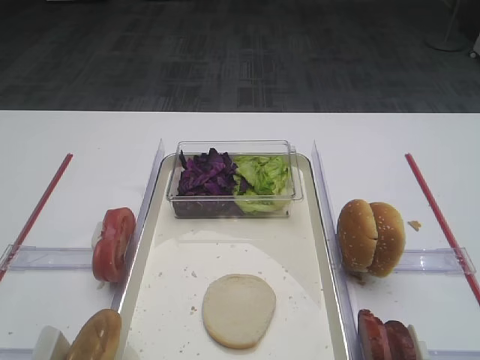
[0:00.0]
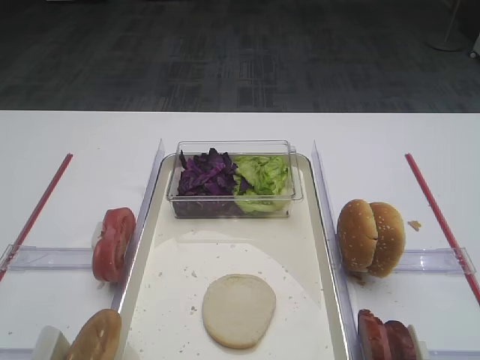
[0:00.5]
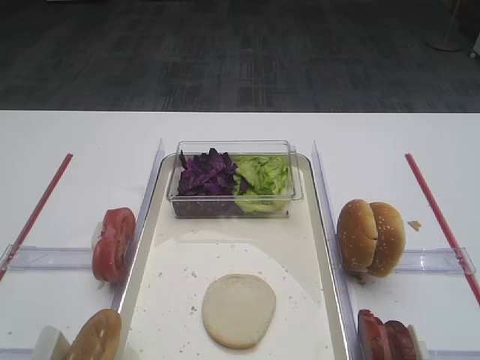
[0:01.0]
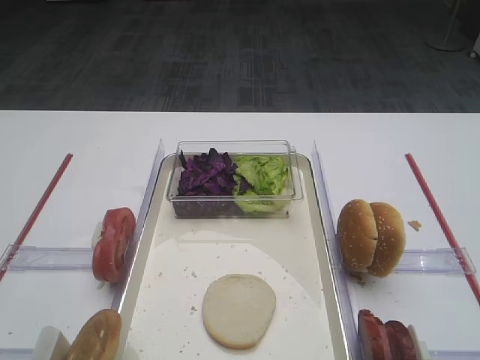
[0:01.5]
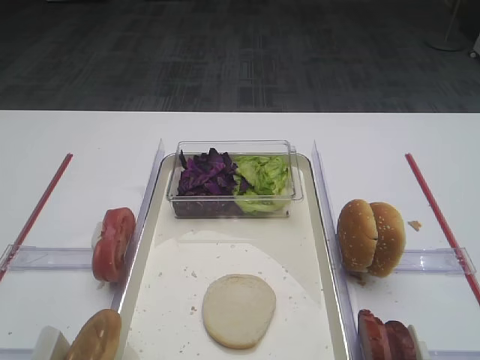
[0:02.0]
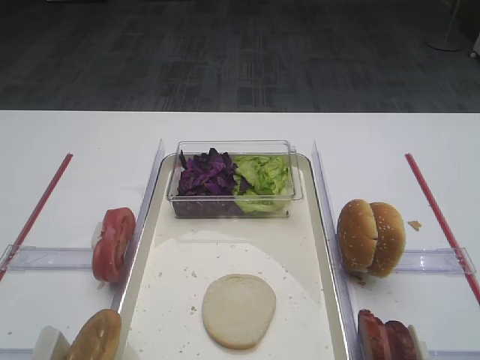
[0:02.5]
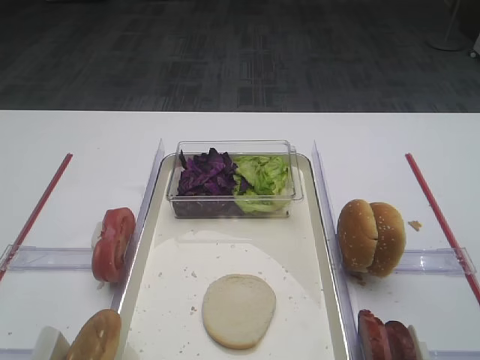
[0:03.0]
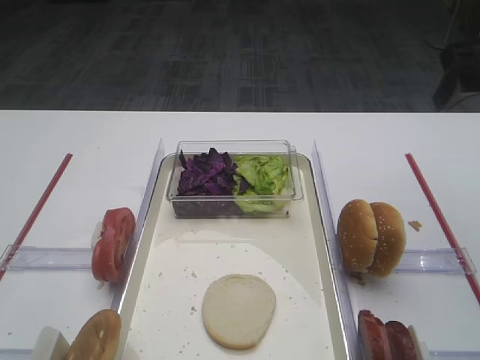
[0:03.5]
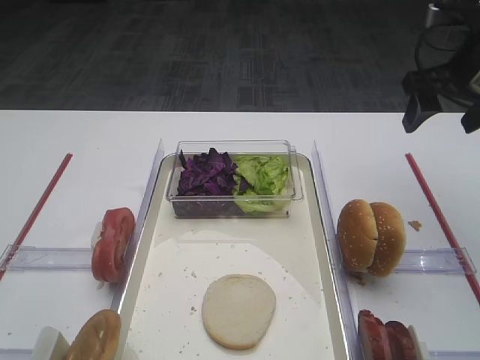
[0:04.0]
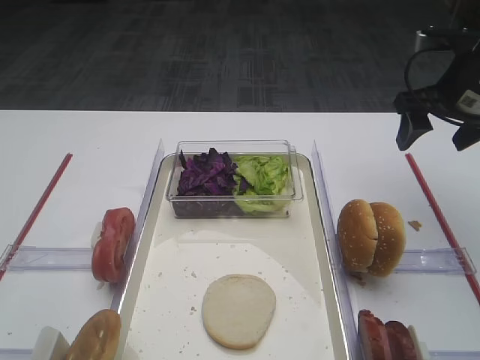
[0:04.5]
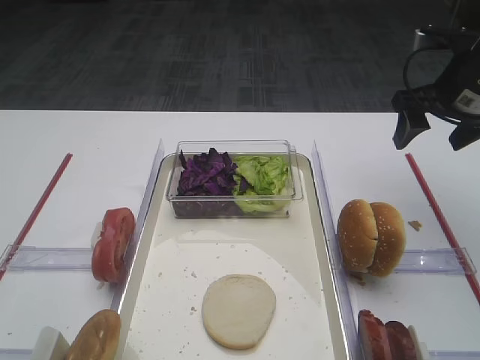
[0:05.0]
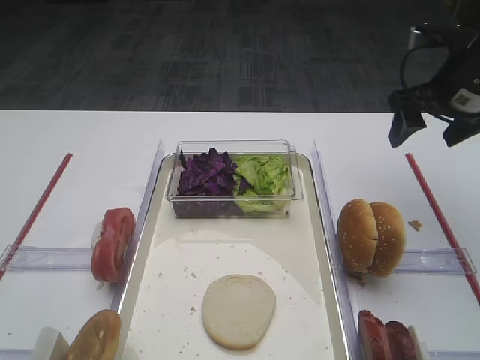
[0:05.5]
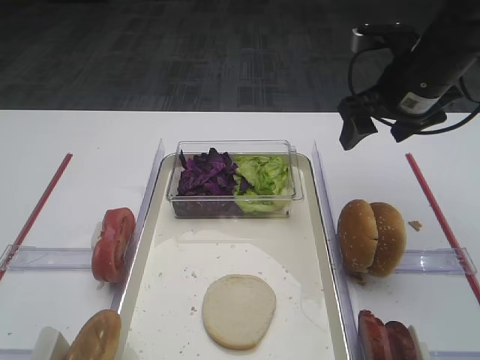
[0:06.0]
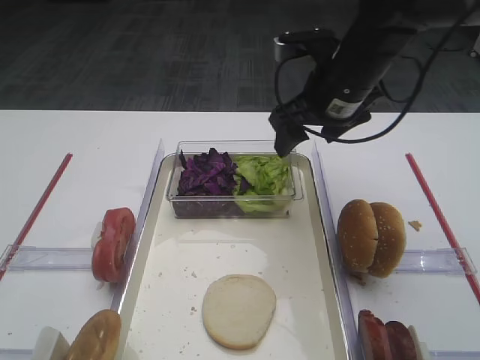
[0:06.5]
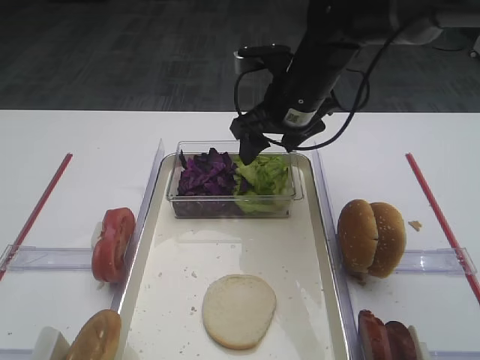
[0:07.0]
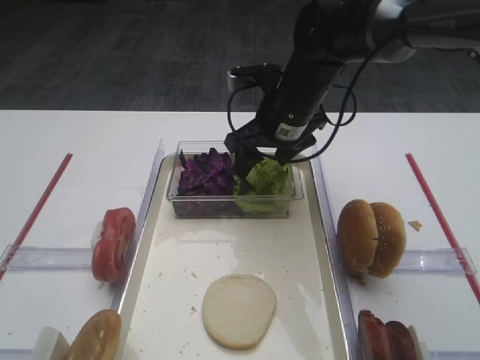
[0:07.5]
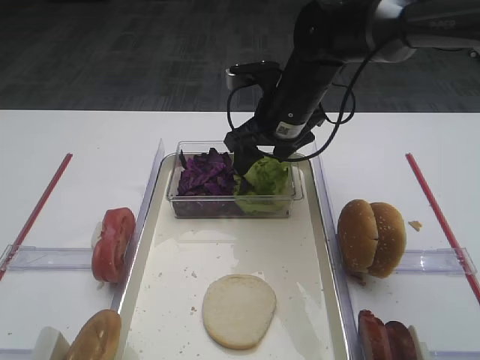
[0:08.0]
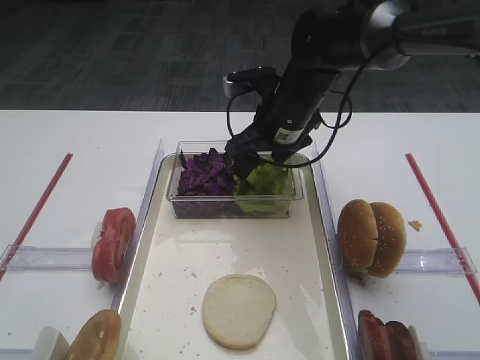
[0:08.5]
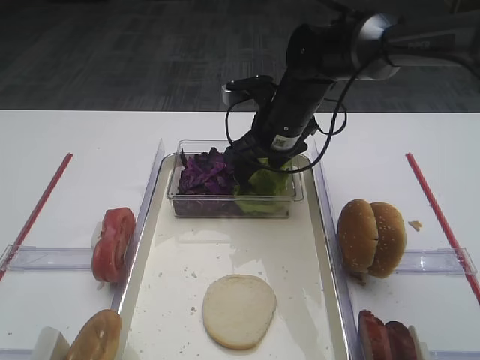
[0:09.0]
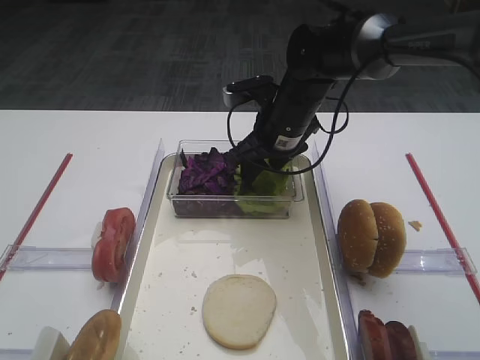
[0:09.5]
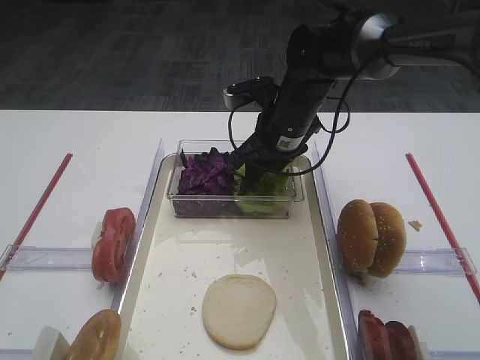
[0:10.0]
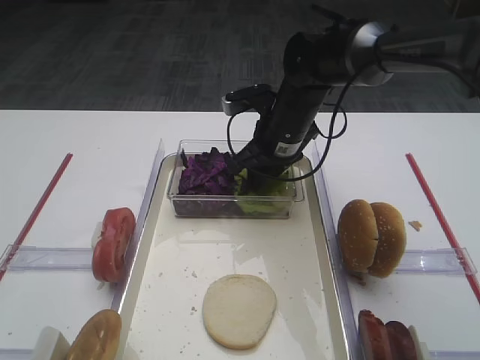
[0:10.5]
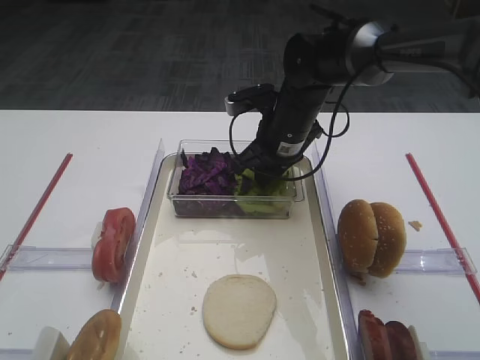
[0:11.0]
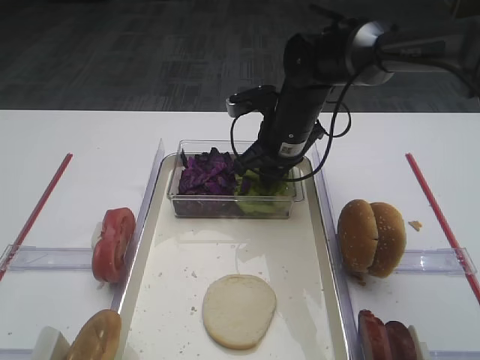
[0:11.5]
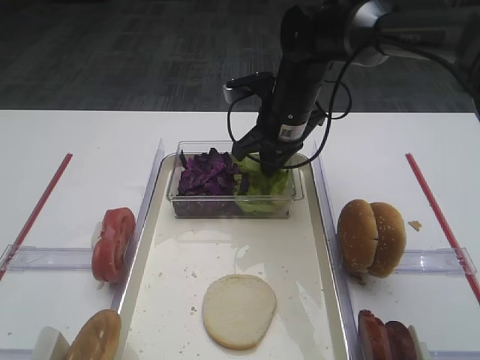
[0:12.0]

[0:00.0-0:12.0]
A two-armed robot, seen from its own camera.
0:02.0 to 0:04.0: The right gripper shifts approximately 35 cm forward.
0:04.0 to 0:06.0: The right gripper shifts approximately 5 cm to the left.
0:06.0 to 0:08.0: The right gripper heads to the left, covering some 15 cm.
0:08.0 to 0:10.0: There are only small adjustments of the grippers.
0:10.0 to 0:12.0: The right gripper closes up.

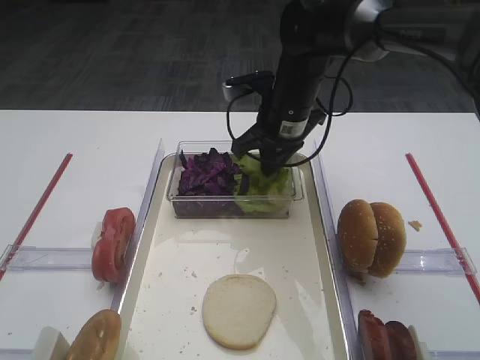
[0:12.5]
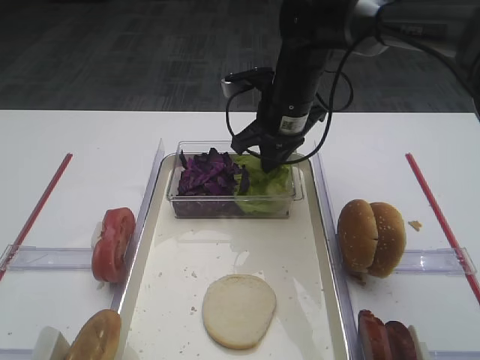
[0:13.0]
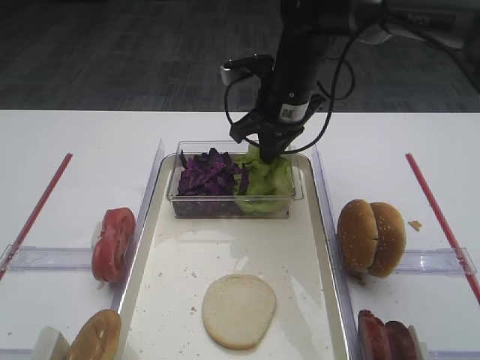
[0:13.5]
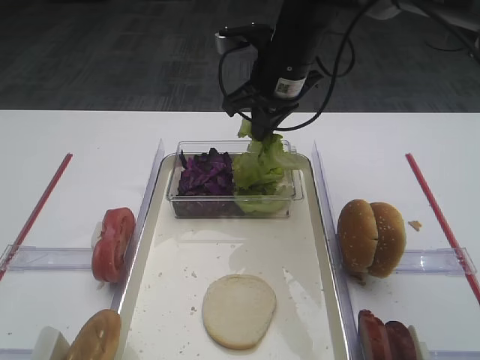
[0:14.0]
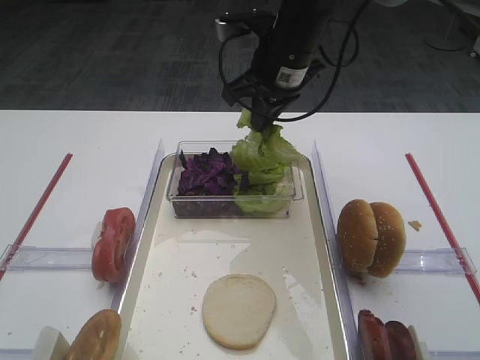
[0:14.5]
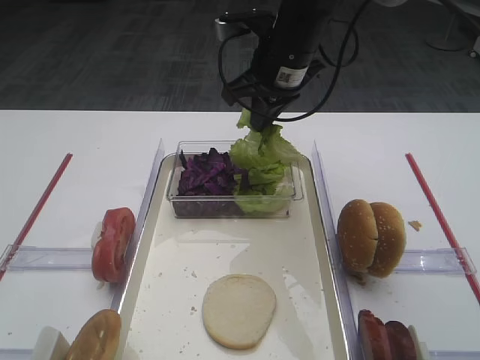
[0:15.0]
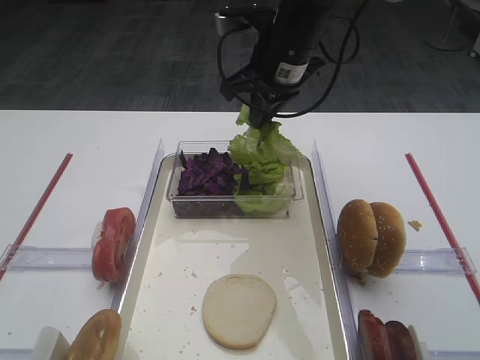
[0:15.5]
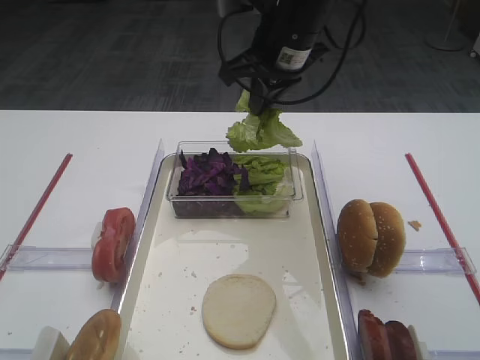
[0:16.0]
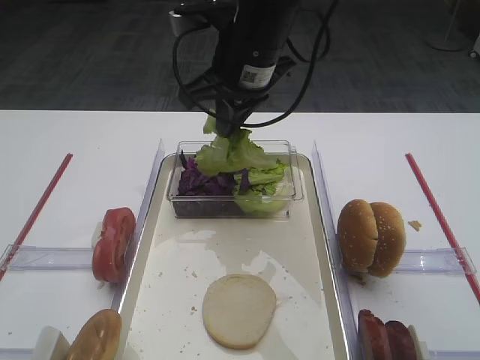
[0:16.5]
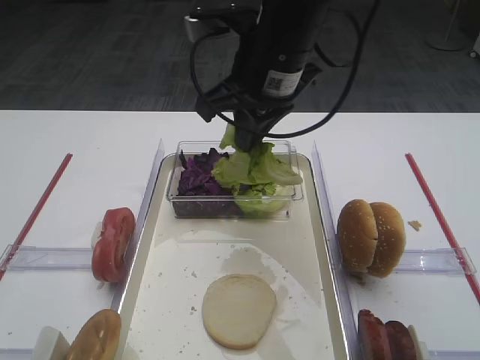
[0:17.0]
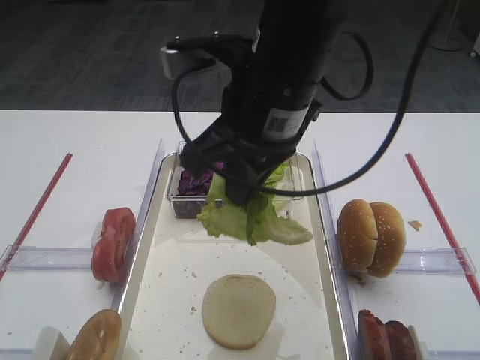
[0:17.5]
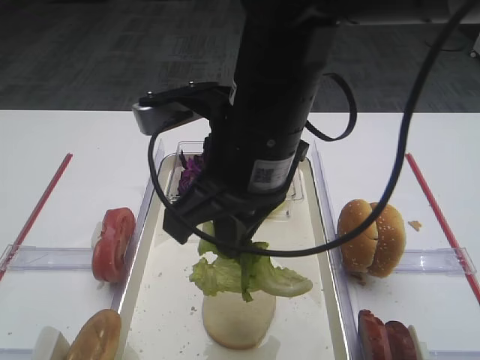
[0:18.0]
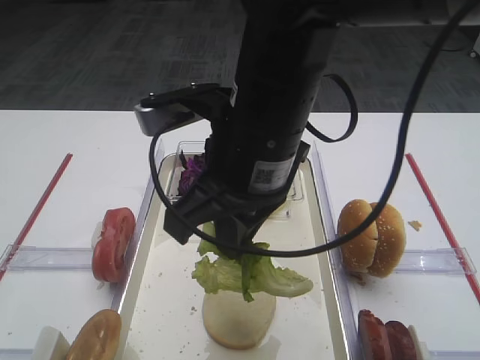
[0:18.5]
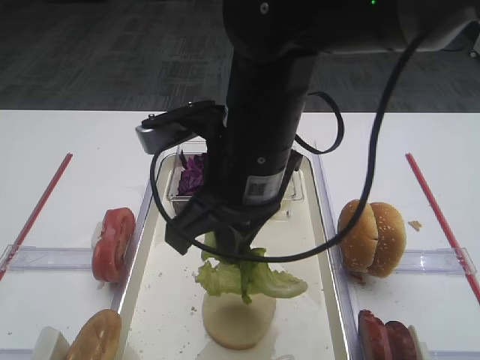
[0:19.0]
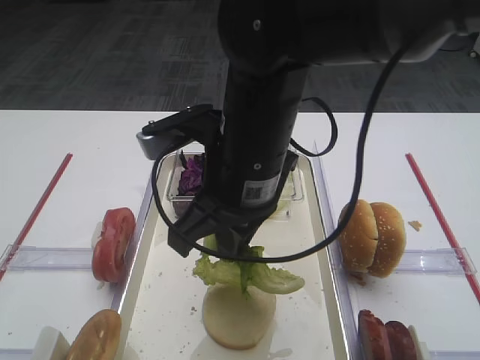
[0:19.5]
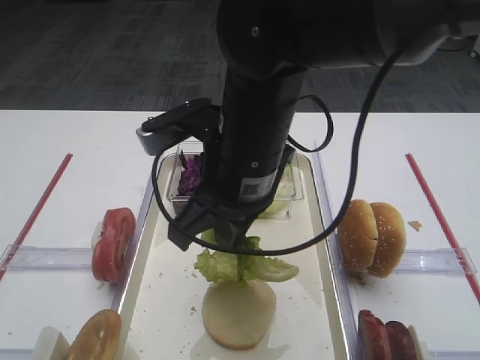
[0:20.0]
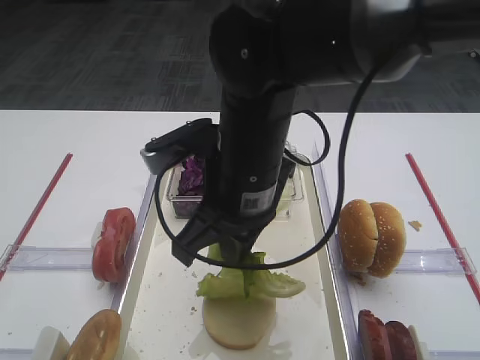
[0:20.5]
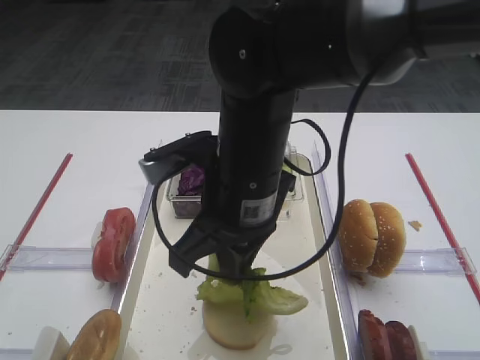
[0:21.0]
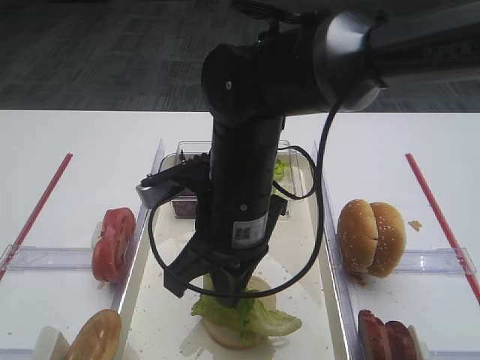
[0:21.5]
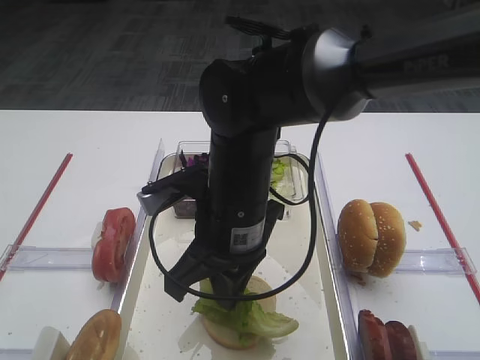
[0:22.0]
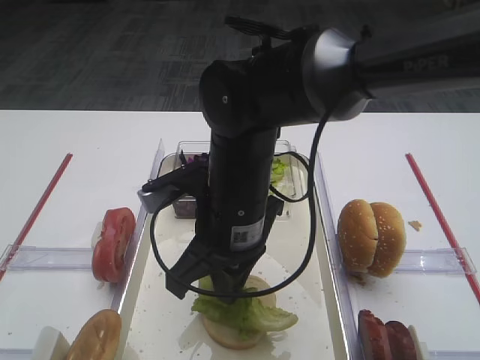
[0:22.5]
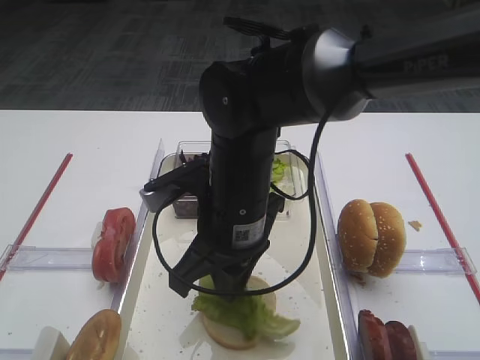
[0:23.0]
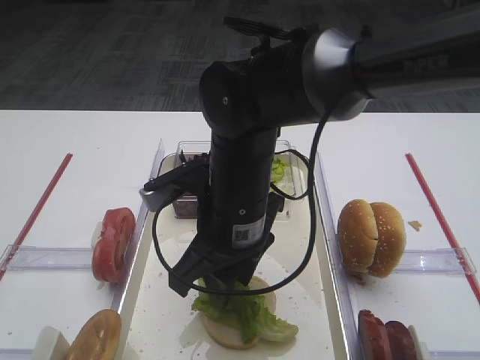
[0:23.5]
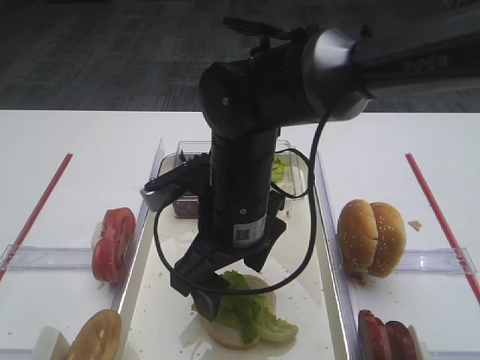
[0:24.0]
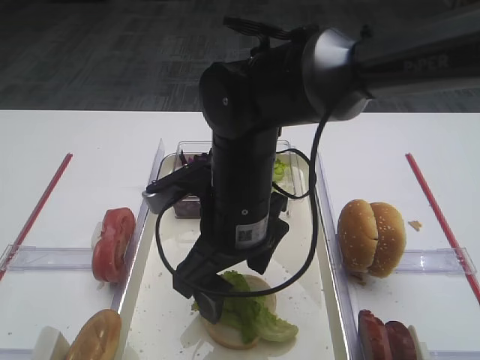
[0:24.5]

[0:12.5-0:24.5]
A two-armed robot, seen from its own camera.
Step, 0:12.5 to 0:15.5: Pick up the lettuce leaf with the right gripper.
0:12.5 to 0:14.5: The right gripper is displaced upward by some 5 cm.
0:14.5 to 0:16.5: The right gripper changes place by about 5 cm.
0:16.5 to 0:18.5: The right gripper shifts roughly 15 cm backward.
0:18.5 to 0:20.5: The right gripper is displaced downward by approximately 5 cm.
0:20.5 to 0:22.5: The grippers stay close to where they were, moving slightly.
0:22.5 to 0:24.5: The right gripper opens up.

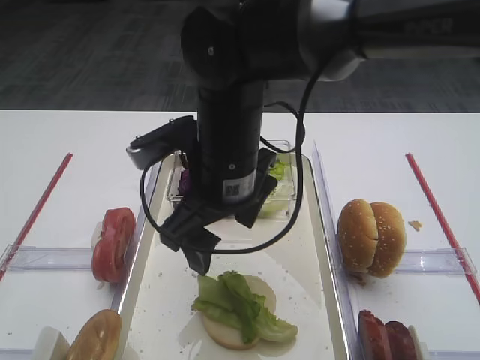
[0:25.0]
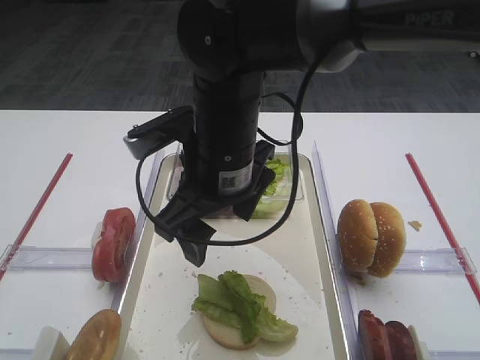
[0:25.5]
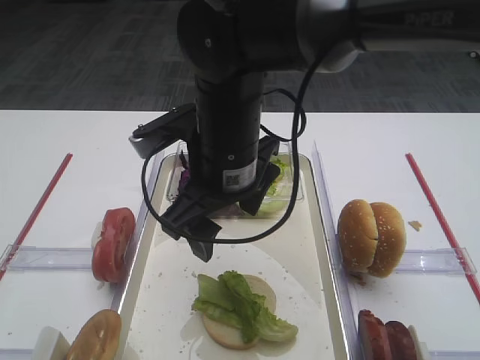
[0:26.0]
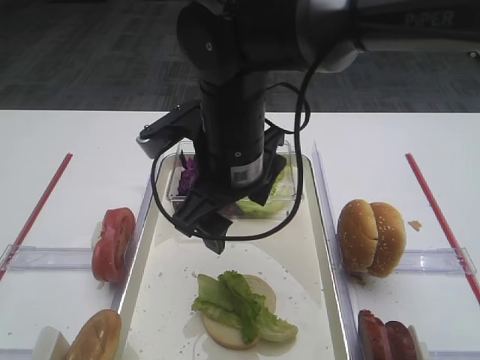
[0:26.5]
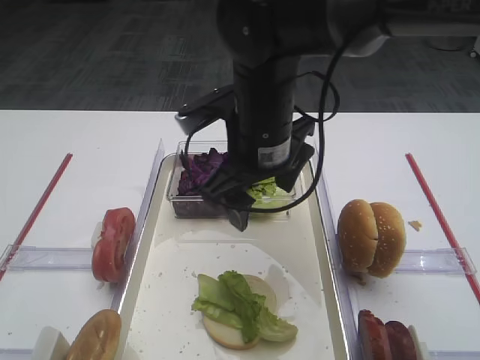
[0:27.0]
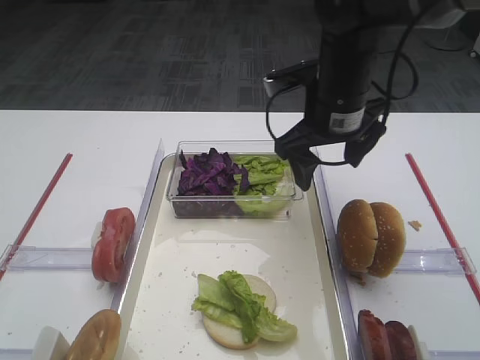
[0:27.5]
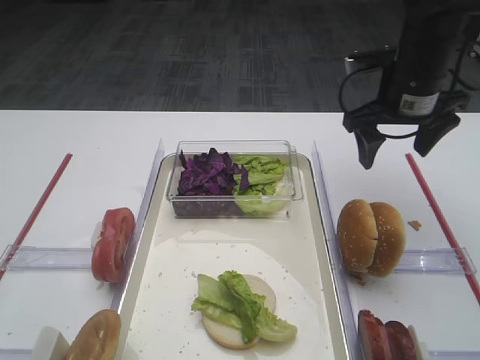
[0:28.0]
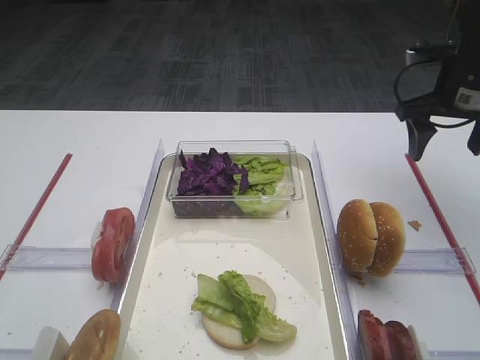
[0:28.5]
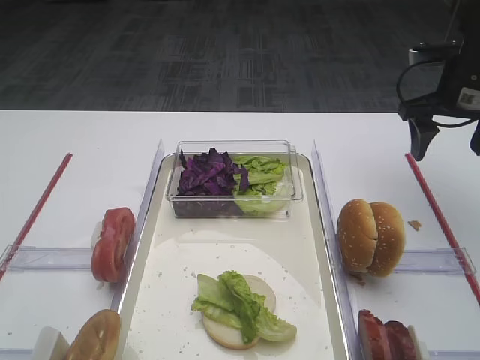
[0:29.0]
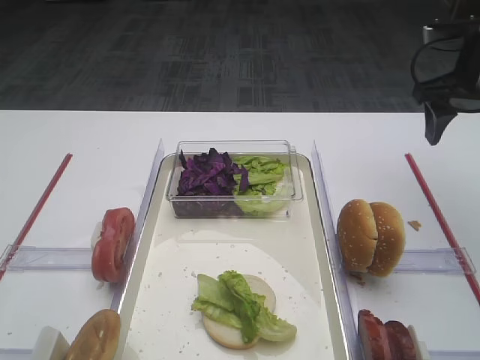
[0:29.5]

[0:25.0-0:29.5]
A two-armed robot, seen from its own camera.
0:25.0 to 0:27.0: The right gripper moves some 5 cm.
0:27.0 to 0:29.5: The right gripper travels to the right by about 25 cm.
